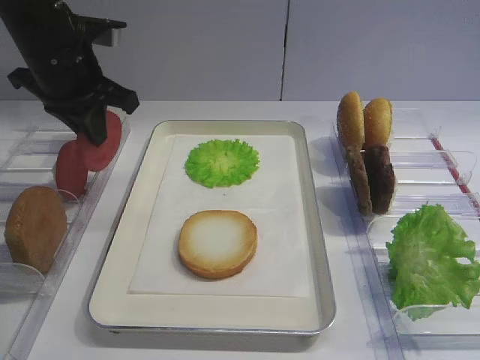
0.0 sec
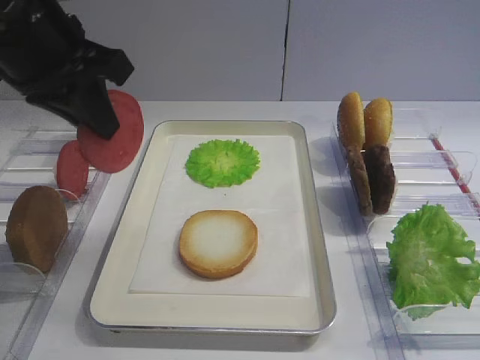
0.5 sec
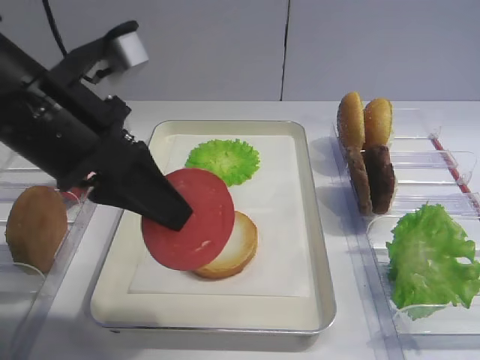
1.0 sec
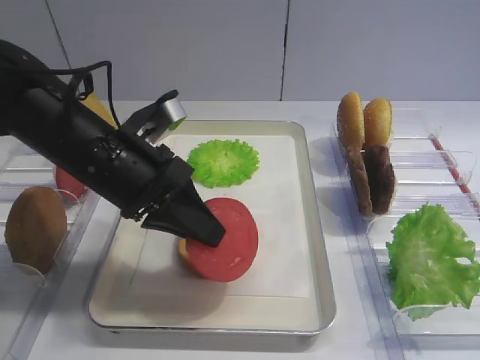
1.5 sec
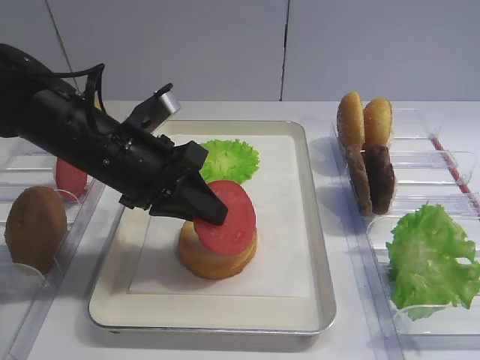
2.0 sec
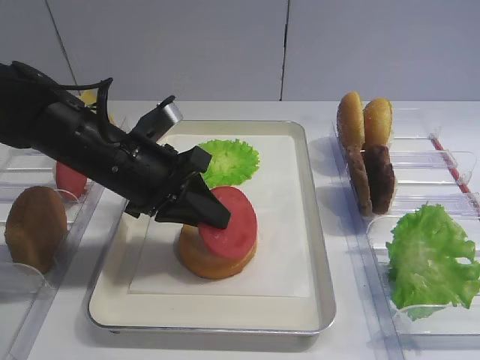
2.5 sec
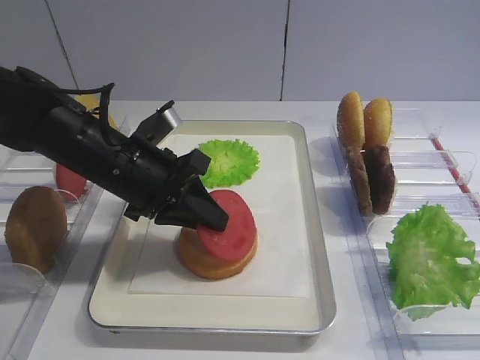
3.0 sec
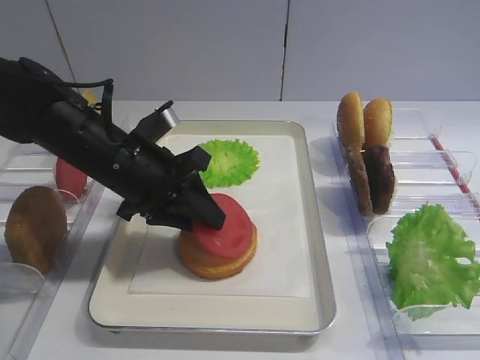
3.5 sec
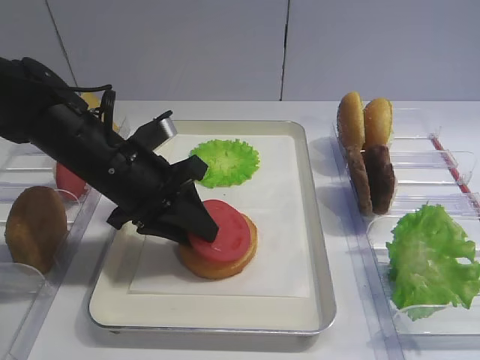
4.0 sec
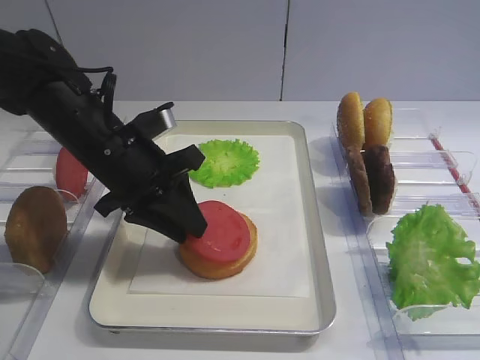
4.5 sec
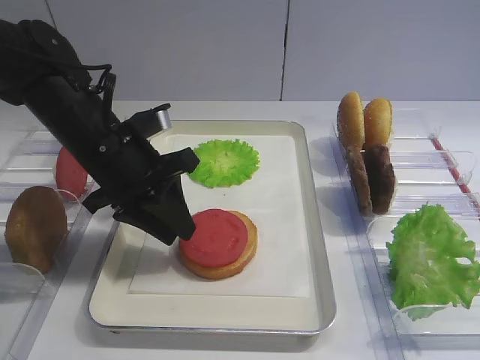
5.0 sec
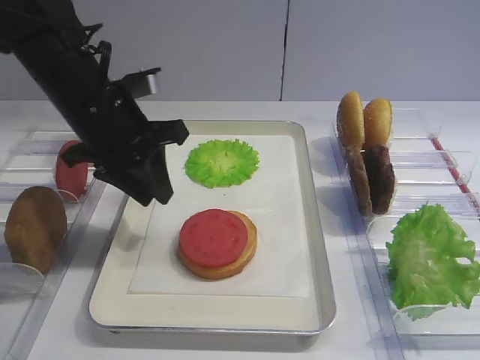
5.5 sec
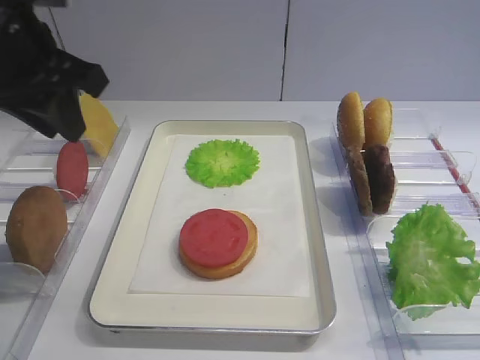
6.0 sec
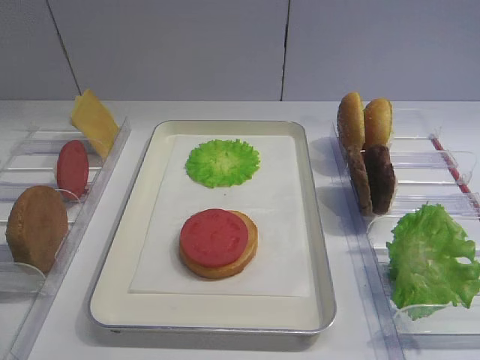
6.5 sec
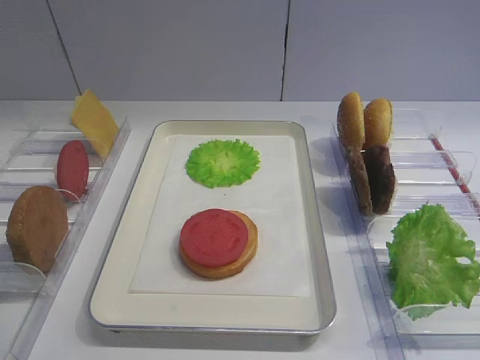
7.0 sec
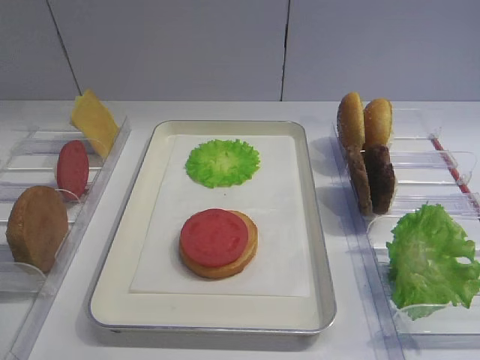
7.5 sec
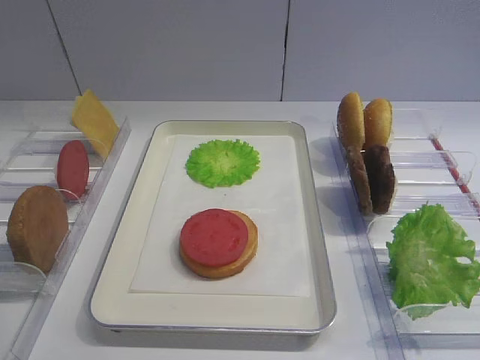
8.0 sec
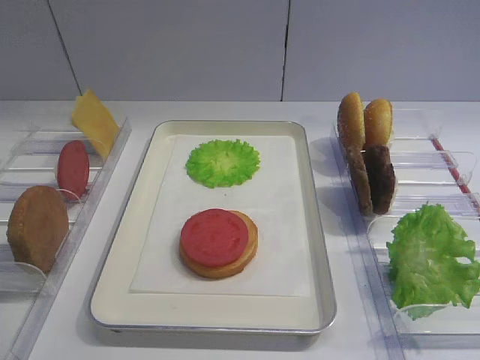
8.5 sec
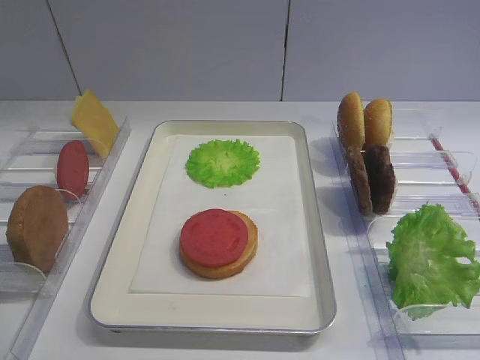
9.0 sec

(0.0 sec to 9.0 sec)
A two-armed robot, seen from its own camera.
Step, 0.5 sec - 5.5 sec: Place the tomato slice on the bread slice with the left gripper.
0.0 sec - 2.0 sec: The left gripper goes approximately 15 cm backward, to the right and downward.
2.0 sec - 4.5 sec: The left gripper opens.
4.5 sec - 7.0 sec: The left gripper heads backward, to the left and upward, covering approximately 35 cm.

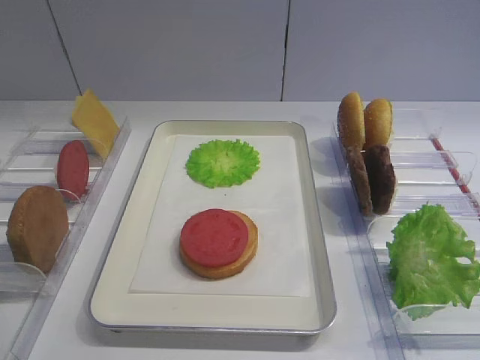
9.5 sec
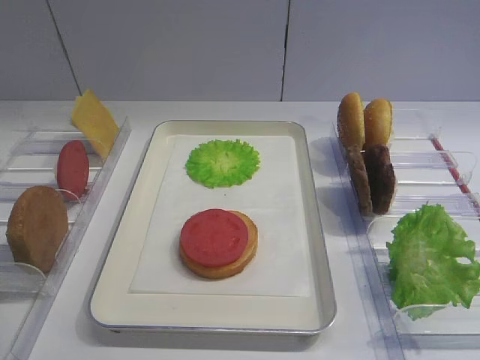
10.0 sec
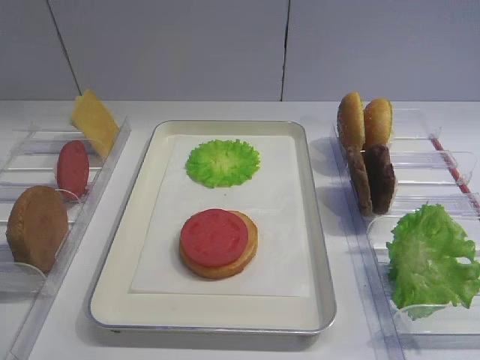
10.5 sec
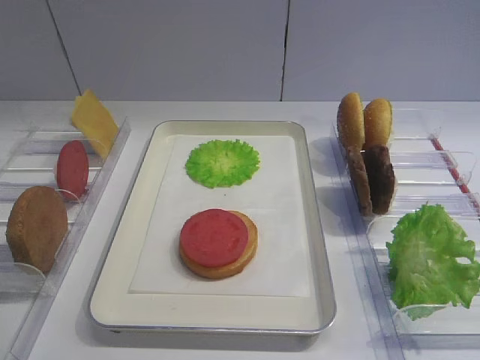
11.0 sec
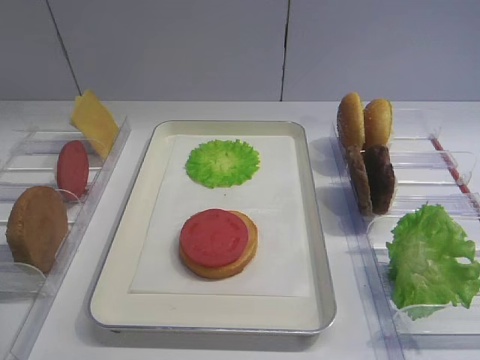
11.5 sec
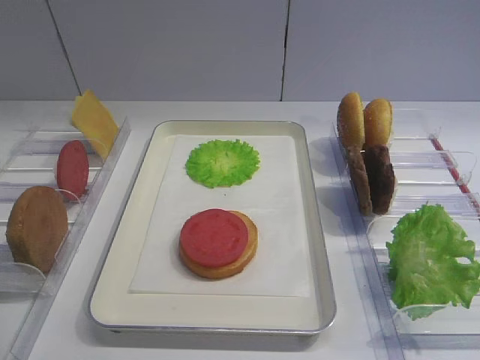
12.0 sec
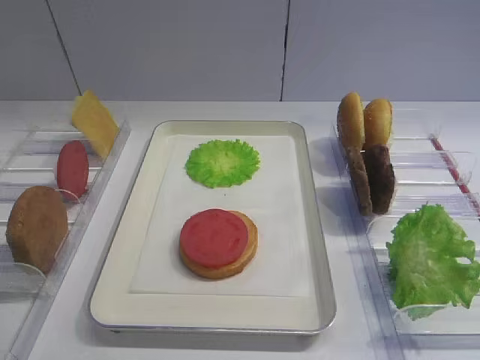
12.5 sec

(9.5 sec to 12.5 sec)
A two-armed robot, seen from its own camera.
9.5 sec - 12.5 sec: Neither gripper changes place.

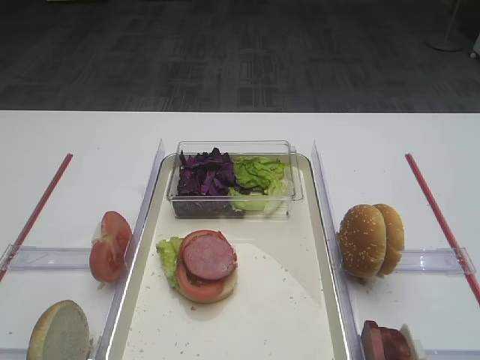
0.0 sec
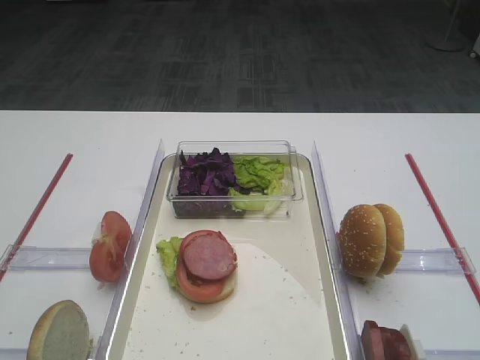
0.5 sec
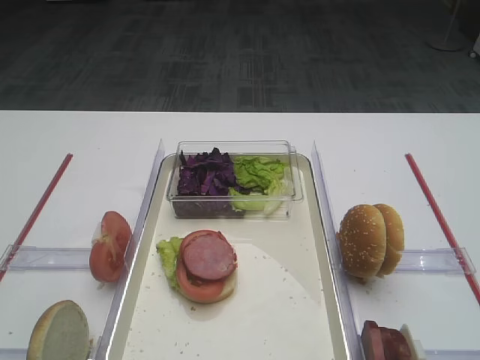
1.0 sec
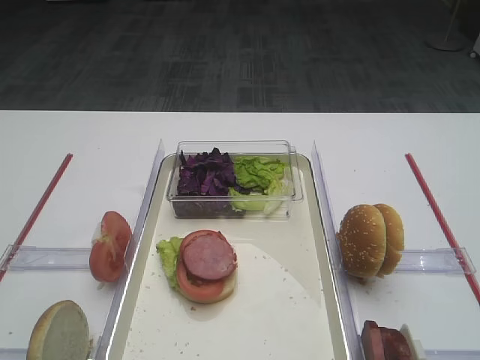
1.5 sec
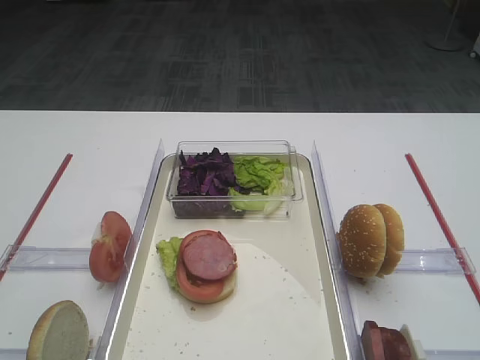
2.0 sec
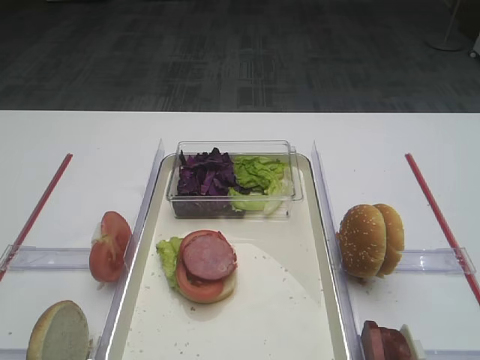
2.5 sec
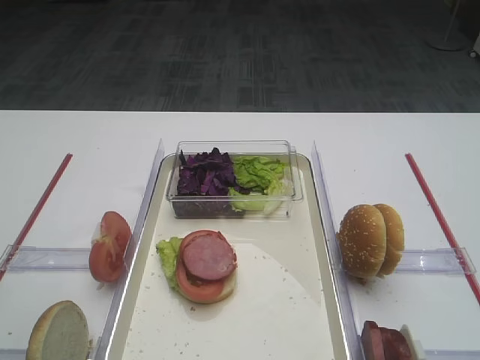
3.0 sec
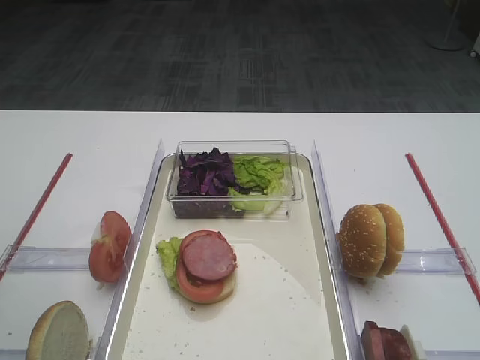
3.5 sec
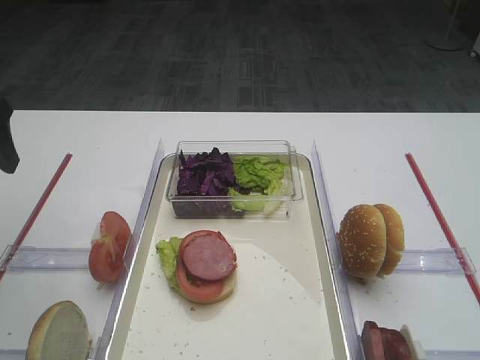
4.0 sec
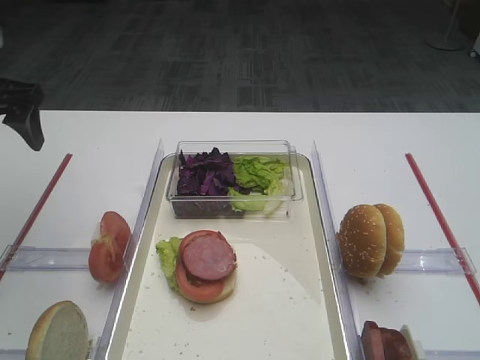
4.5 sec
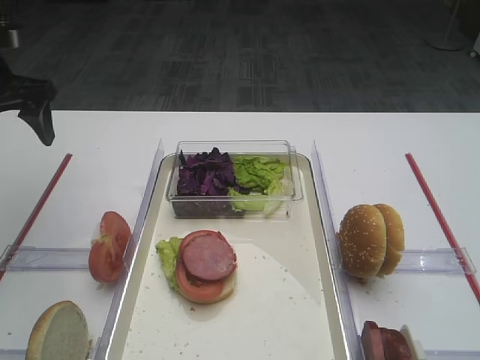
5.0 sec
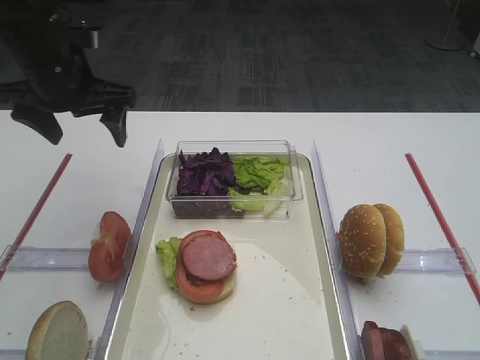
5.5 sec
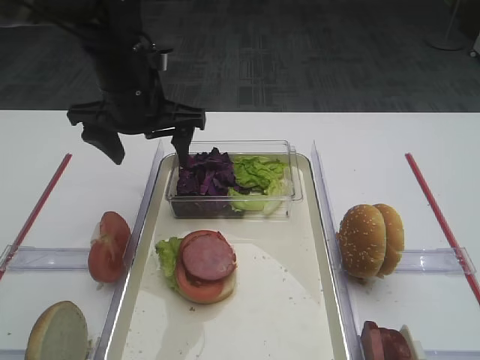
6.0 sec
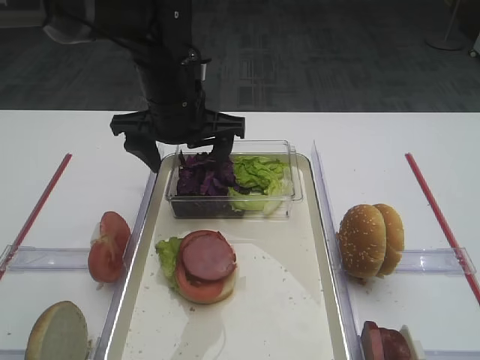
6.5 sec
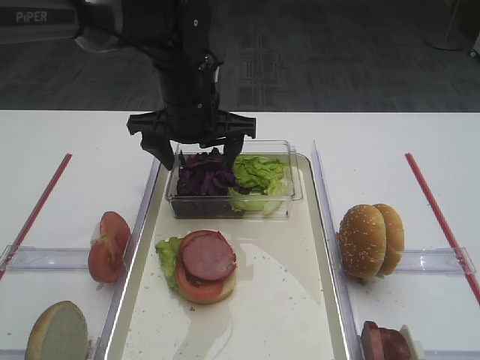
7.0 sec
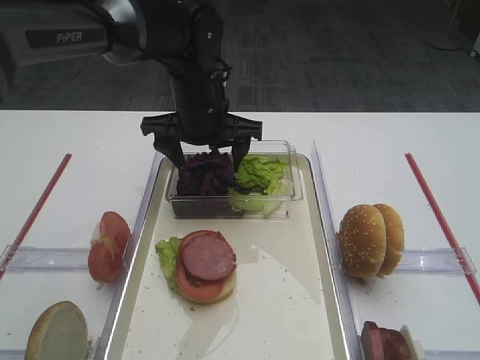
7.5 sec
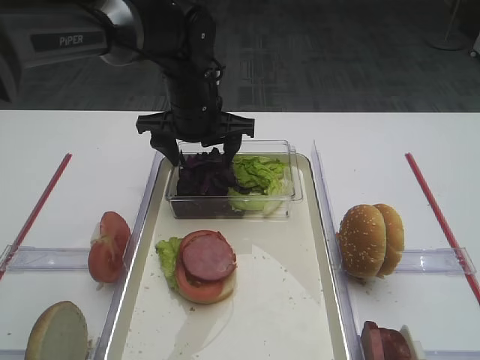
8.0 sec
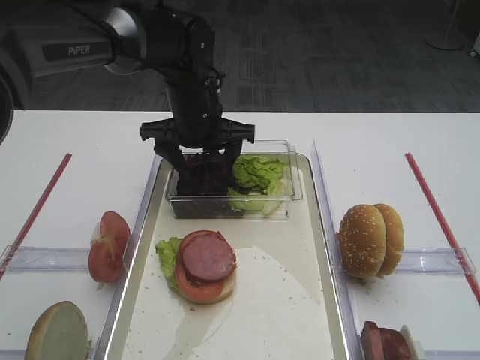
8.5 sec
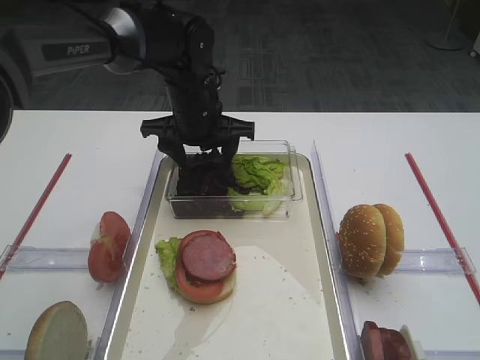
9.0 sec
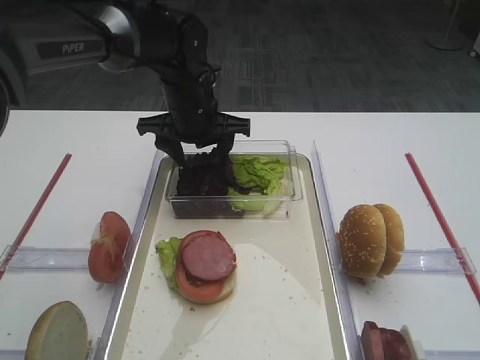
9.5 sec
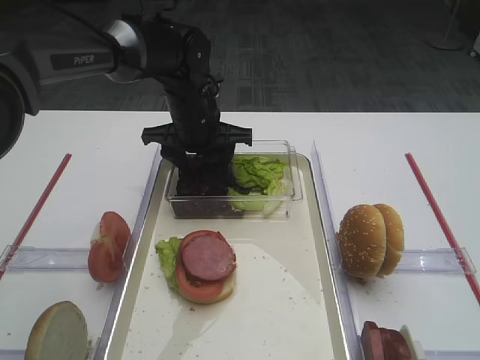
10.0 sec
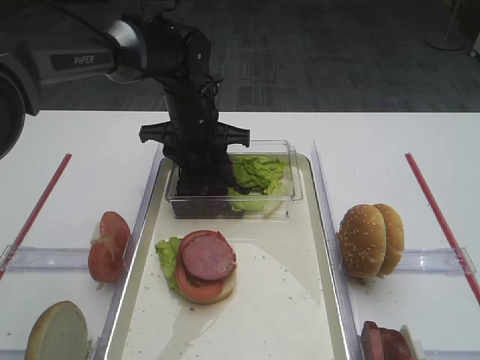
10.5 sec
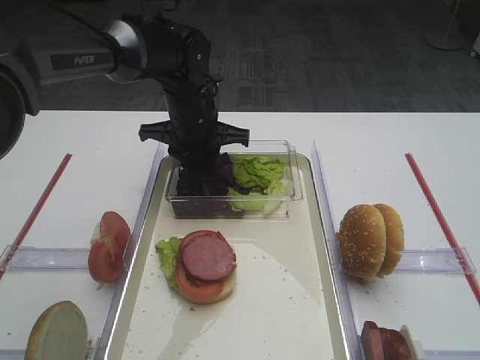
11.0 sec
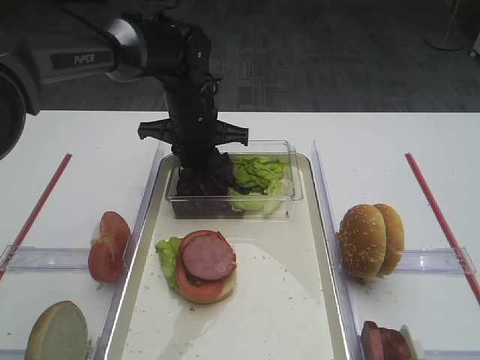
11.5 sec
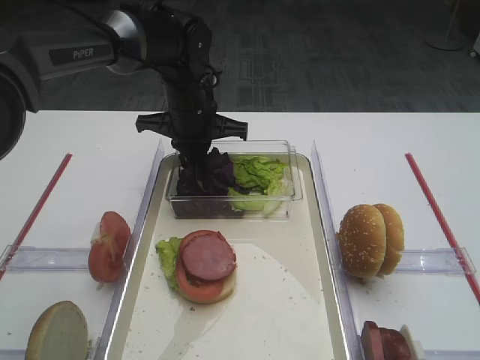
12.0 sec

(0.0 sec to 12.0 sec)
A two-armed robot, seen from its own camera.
2.0 sec - 4.0 sec: The left gripper is displaced forward by about 30 cm.
4.0 sec - 6.0 sec: The left gripper travels to the right and forward by roughly 20 cm.
6.0 sec - 8.0 sec: The left gripper heads to the right, covering approximately 5 cm, while the right gripper closes up.
8.0 sec - 10.0 sec: The right gripper closes its fingers.
10.0 sec - 12.0 sec: The left gripper closes up.

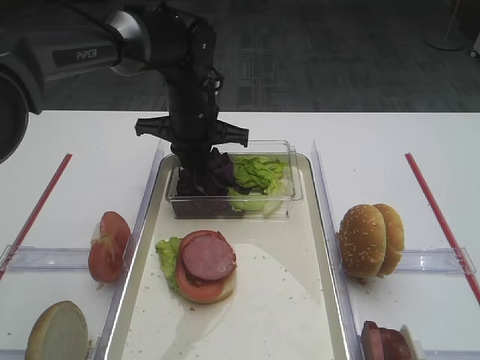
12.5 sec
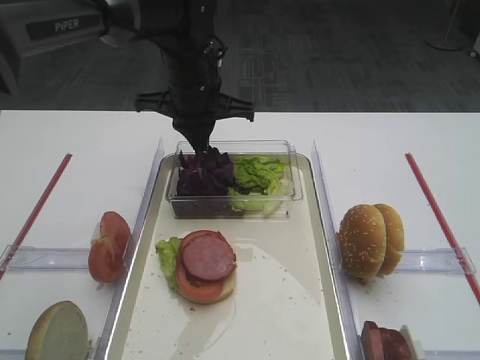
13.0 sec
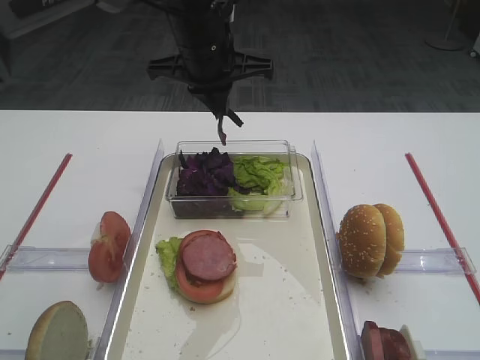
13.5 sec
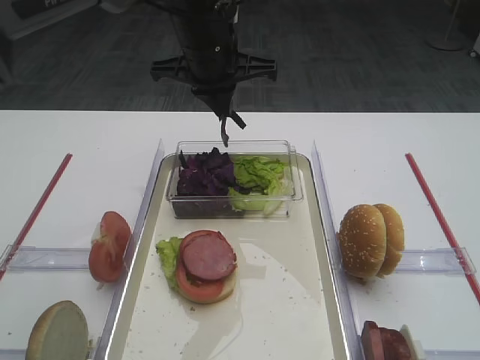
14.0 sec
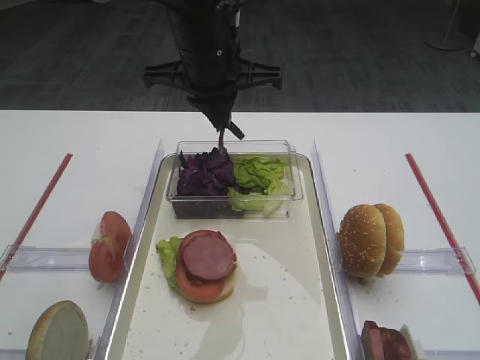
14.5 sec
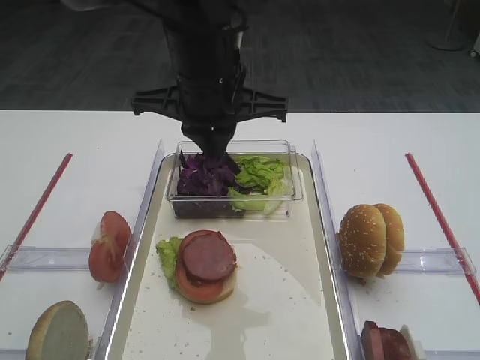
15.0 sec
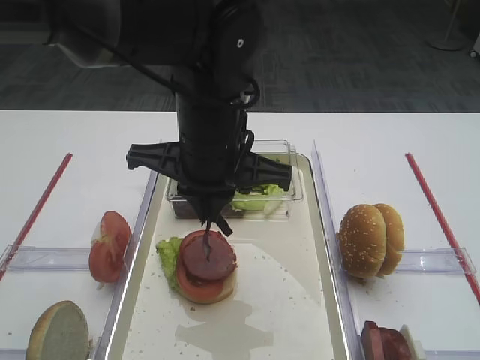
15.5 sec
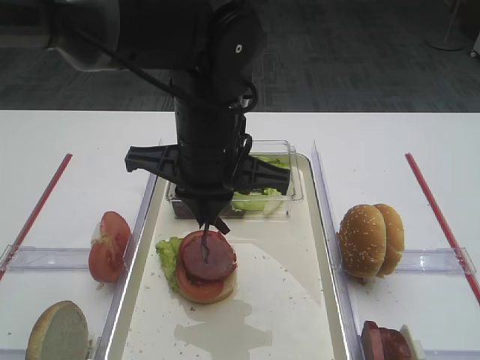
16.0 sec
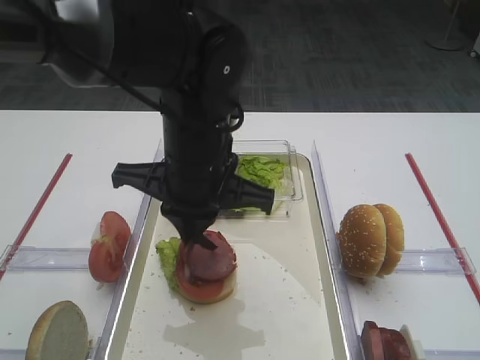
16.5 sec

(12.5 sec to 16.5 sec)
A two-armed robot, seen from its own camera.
12.5 sec - 14.5 sec: The left gripper heads upward and backward, covering approximately 10 cm.
14.5 sec - 16.5 sec: The left gripper moves backward and downward, roughly 10 cm.
